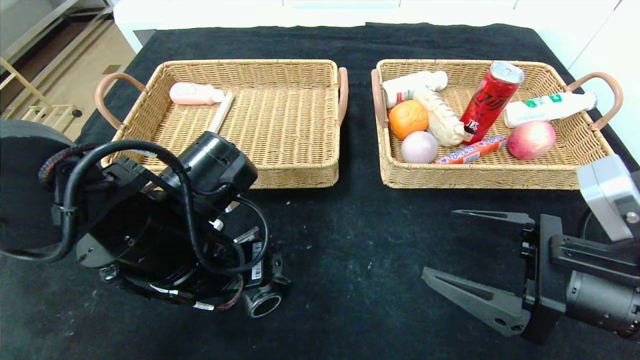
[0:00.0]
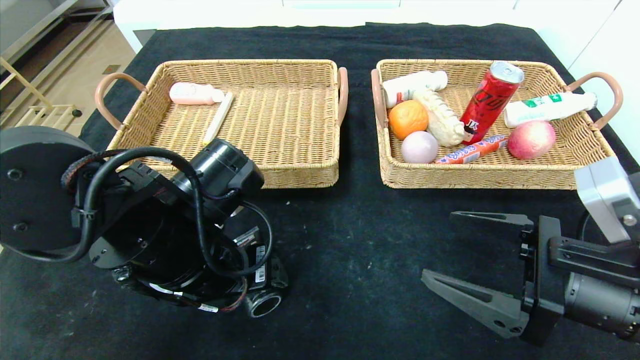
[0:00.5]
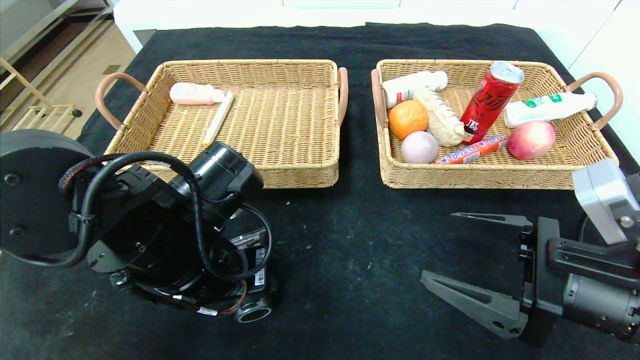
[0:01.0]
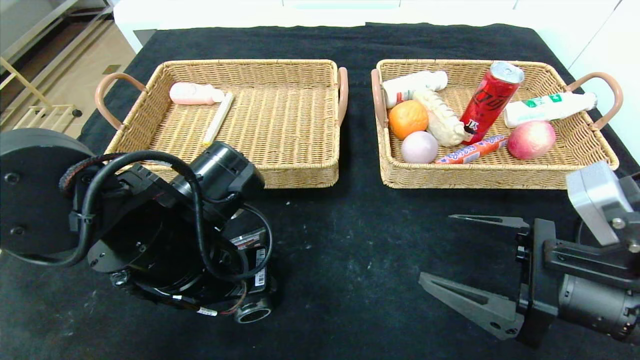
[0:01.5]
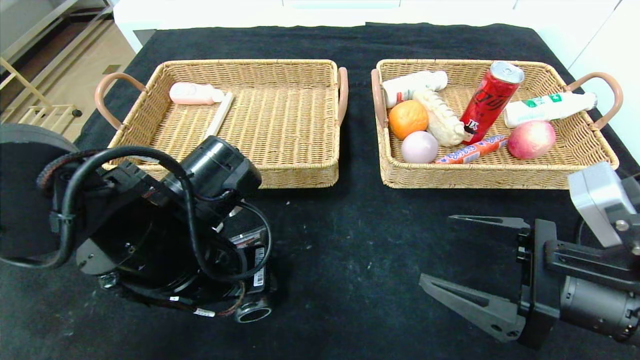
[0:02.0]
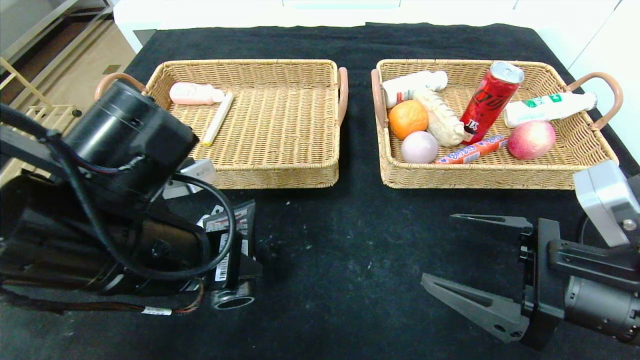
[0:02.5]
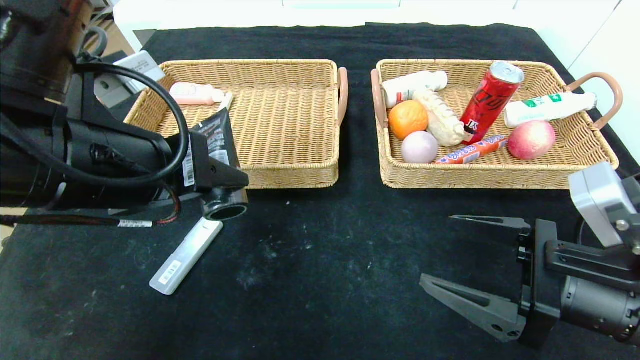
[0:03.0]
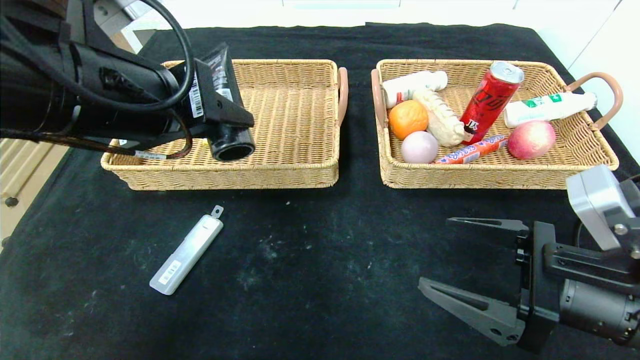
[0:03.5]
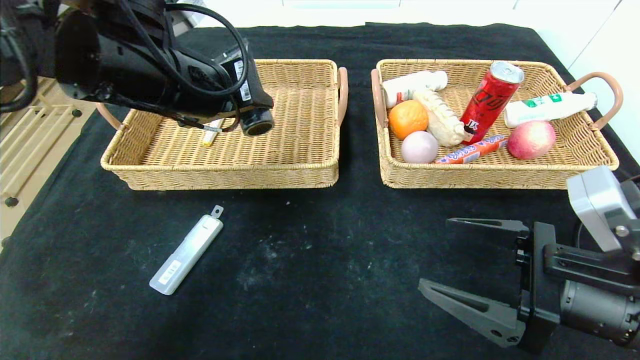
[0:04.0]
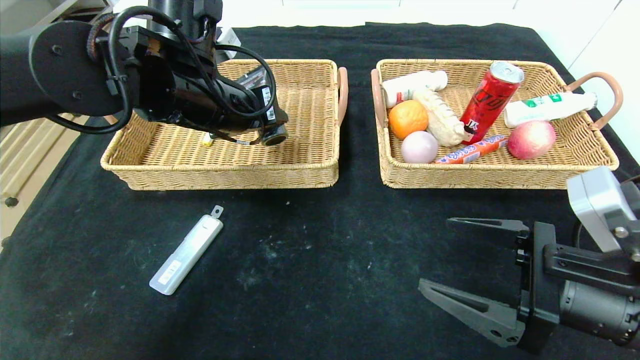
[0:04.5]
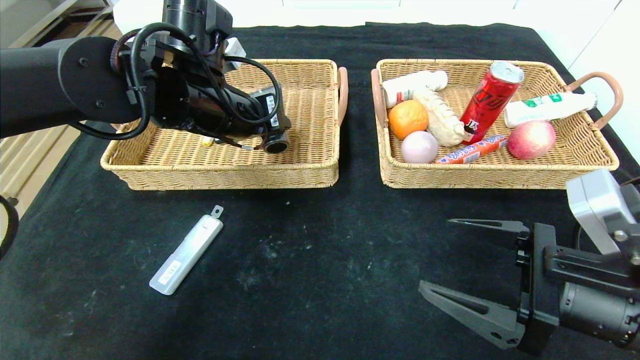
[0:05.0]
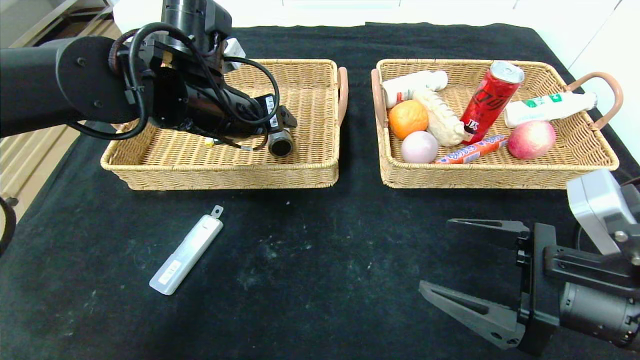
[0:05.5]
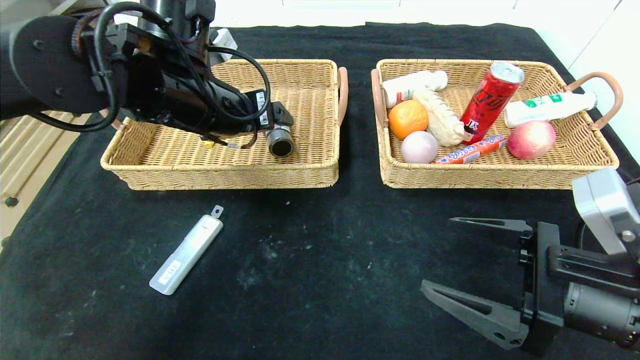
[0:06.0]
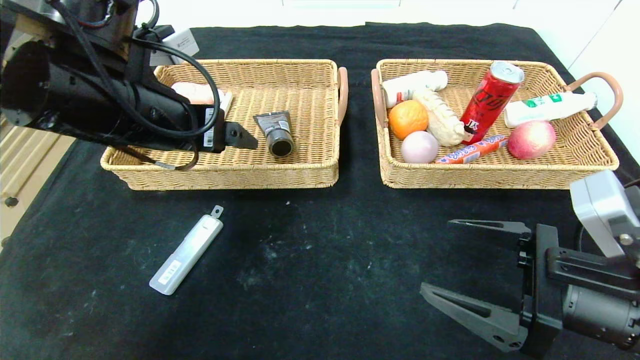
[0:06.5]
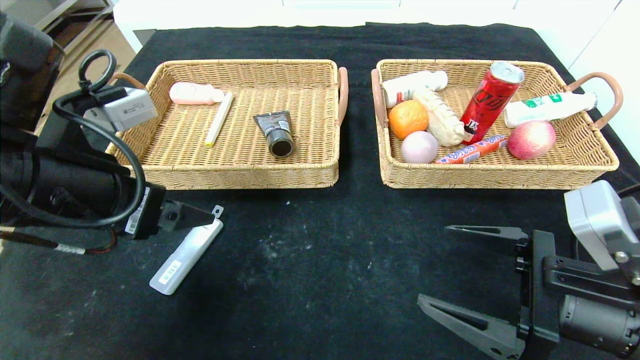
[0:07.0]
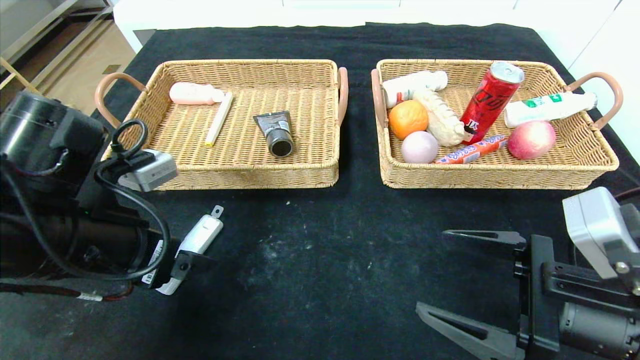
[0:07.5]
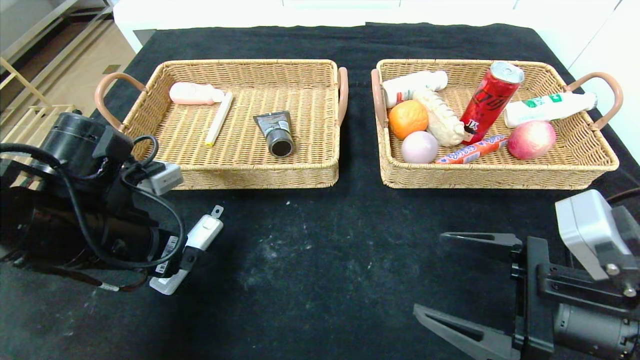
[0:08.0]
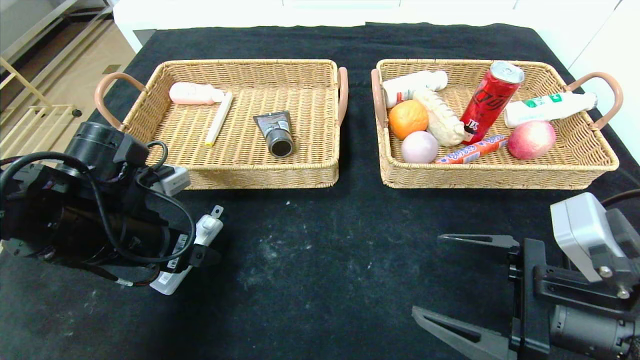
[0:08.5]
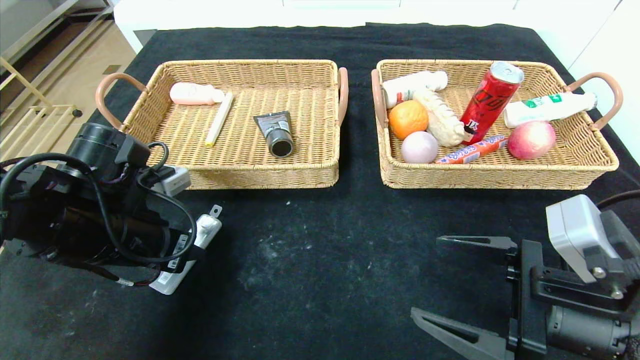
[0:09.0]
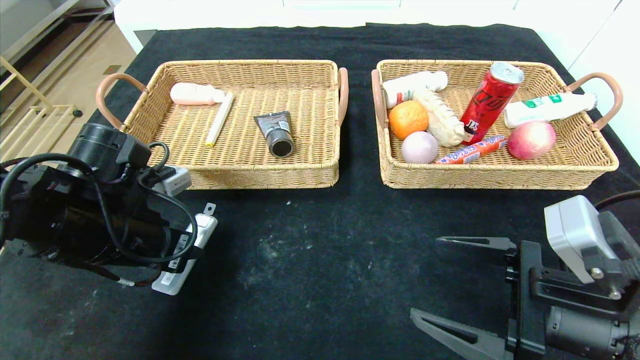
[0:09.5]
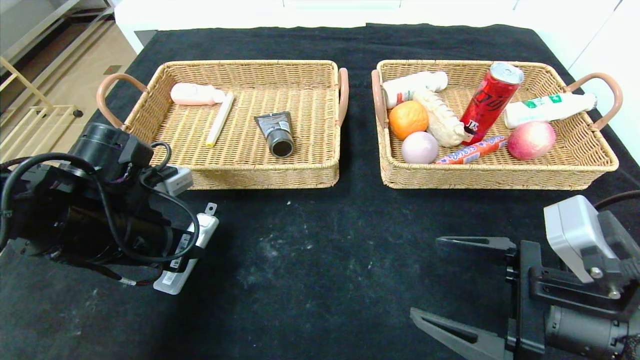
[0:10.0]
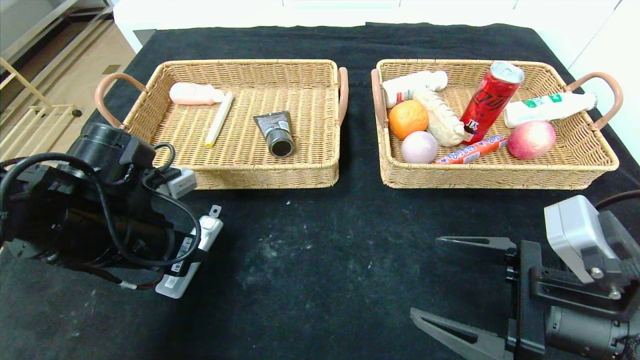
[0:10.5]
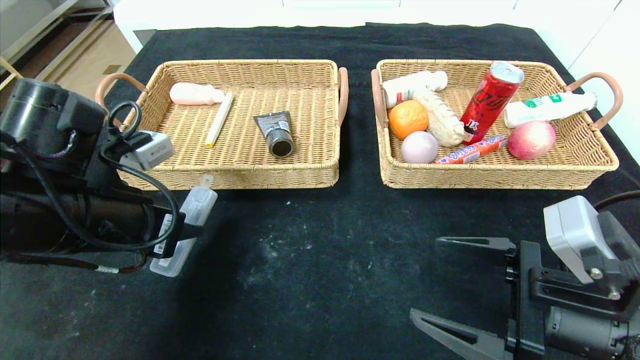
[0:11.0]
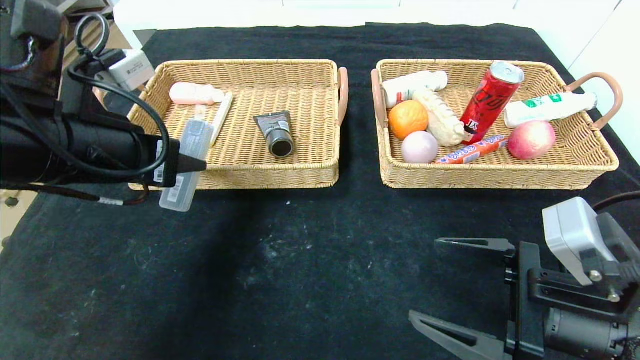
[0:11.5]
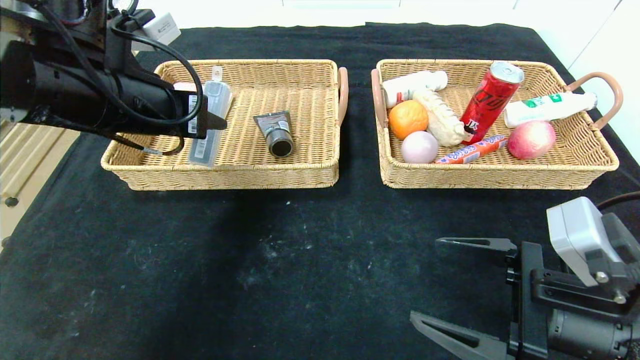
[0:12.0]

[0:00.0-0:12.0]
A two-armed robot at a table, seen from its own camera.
Step, 0:00.0 to 0:05.5: Grasp the soft cleanser and put it in the left basket.
0:00.0 to 0:02.0: The left gripper closes its fingers.
0:02.0 to 0:04.0: The left gripper moves upward and forward, roughly 15 cm.
0:04.0 to 0:06.0: The left gripper opens.
0:06.0 to 0:08.0: The left gripper heads backward, downward and to the left, covering about 15 cm.
0:08.0 to 0:10.0: The left gripper closes up.
0:10.0 to 0:12.0: The left gripper moves upward, about 15 cm.

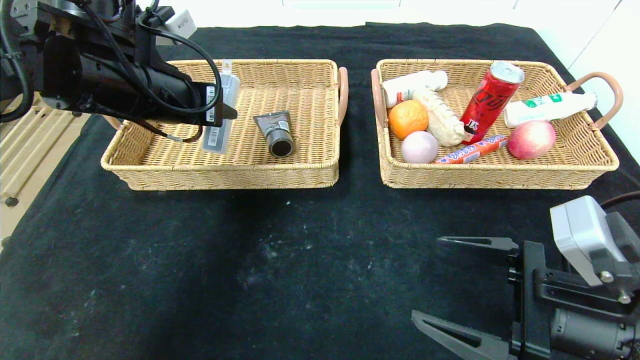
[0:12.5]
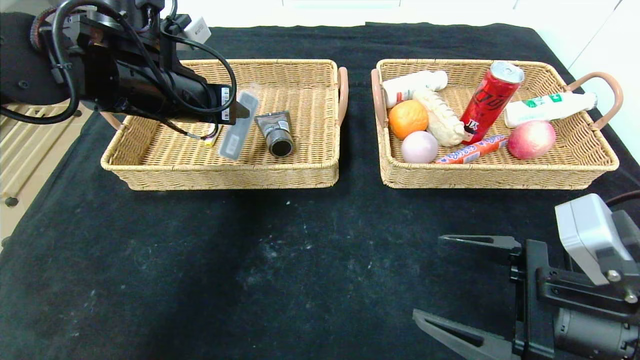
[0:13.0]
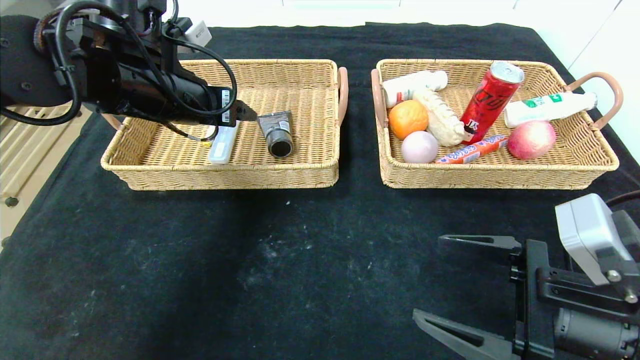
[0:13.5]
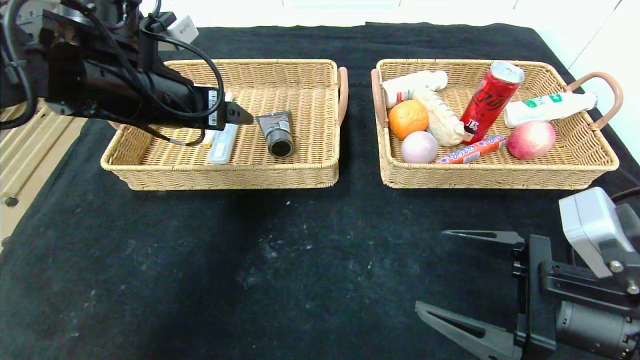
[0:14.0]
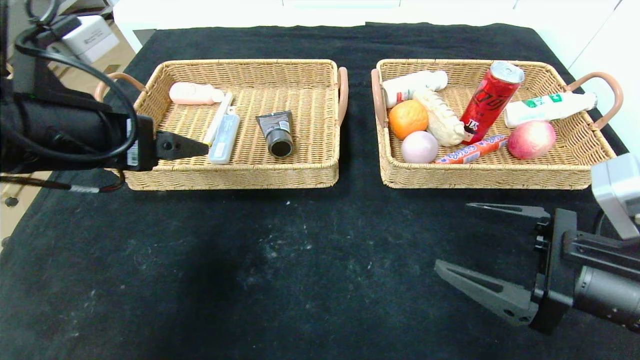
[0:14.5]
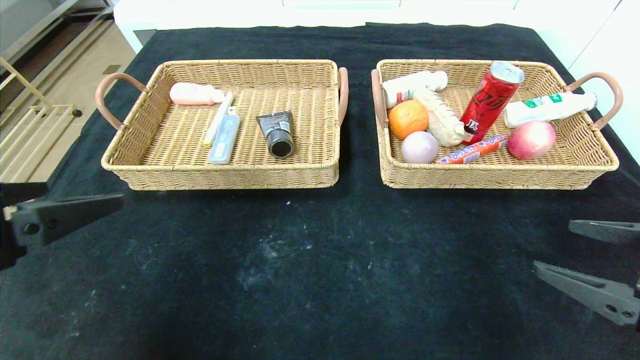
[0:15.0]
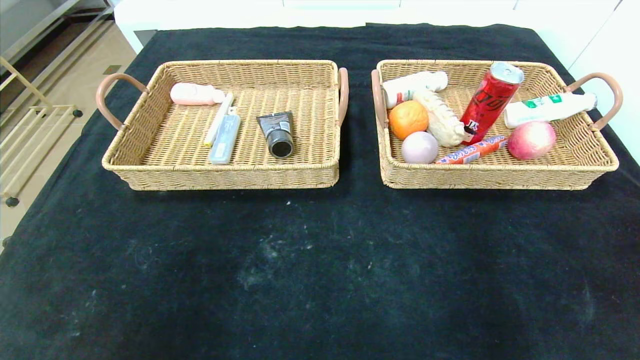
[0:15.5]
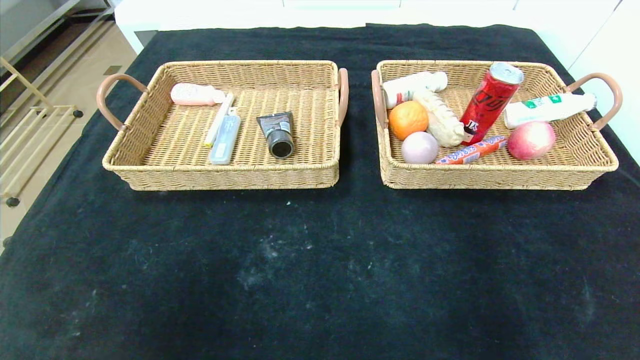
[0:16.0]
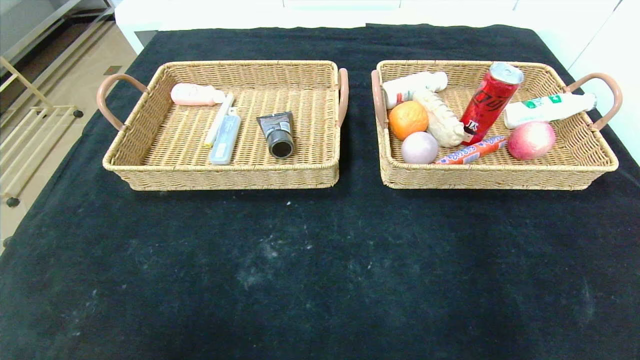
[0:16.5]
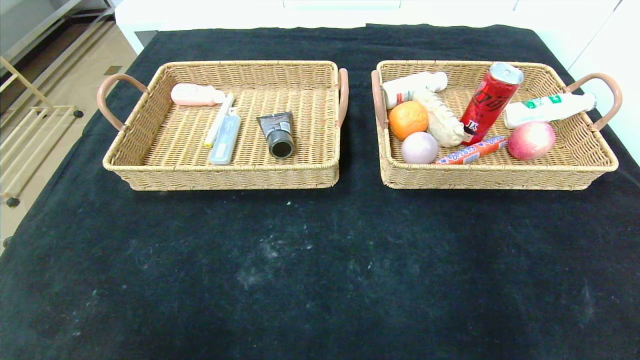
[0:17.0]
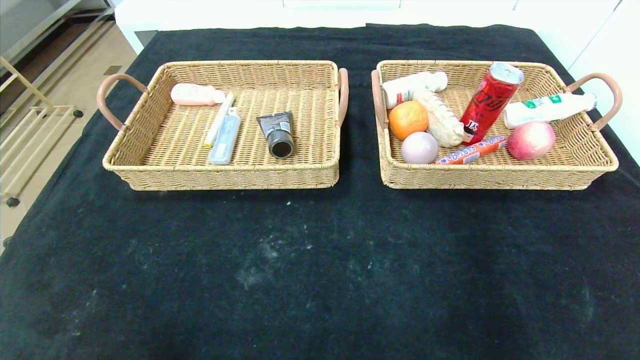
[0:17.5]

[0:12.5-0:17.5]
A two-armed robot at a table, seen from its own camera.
0:12.5 to 0:15.0: The left gripper goes some 20 cm backward, and opens its fingers. Meanwhile the right gripper travels to the right by roughly 10 cm.
0:15.0 to 0:17.5: The right gripper shifts roughly 20 cm backward and downward; the left gripper is displaced downward and backward by some 25 cm.

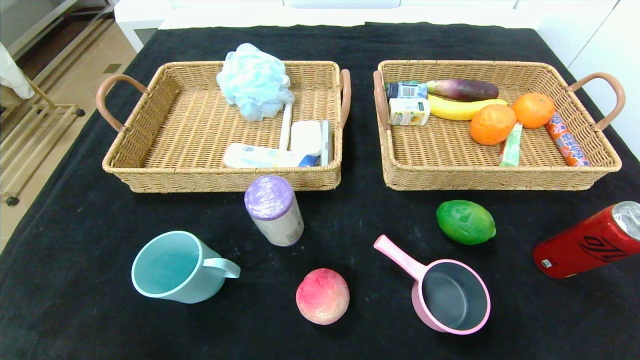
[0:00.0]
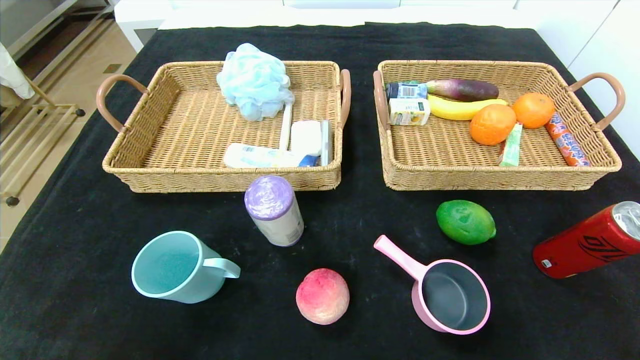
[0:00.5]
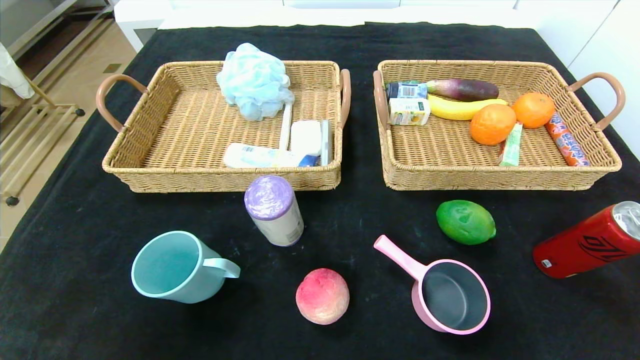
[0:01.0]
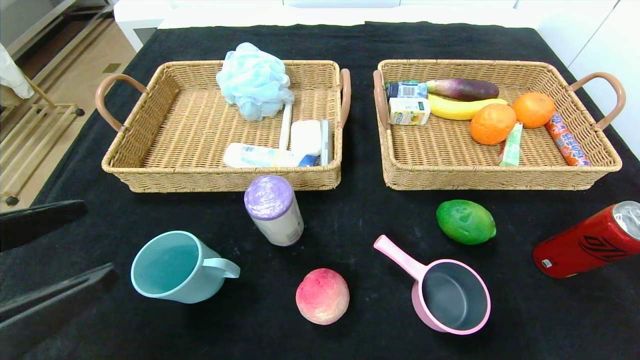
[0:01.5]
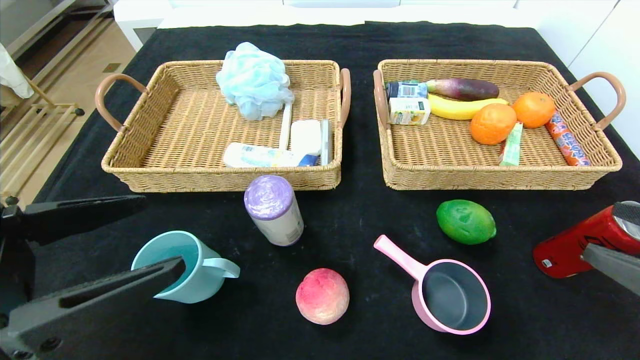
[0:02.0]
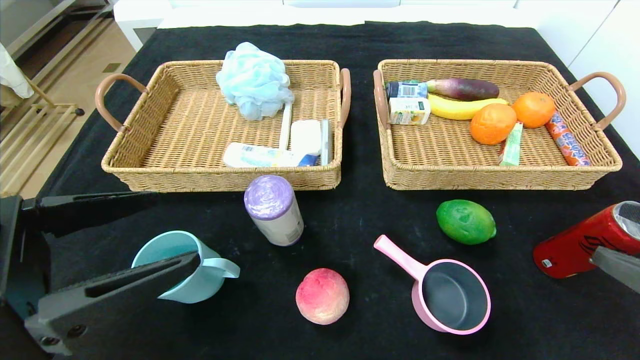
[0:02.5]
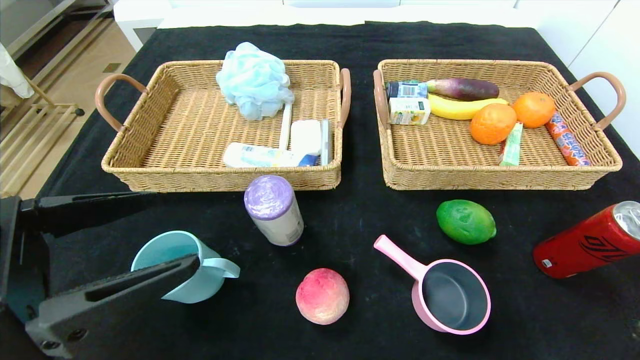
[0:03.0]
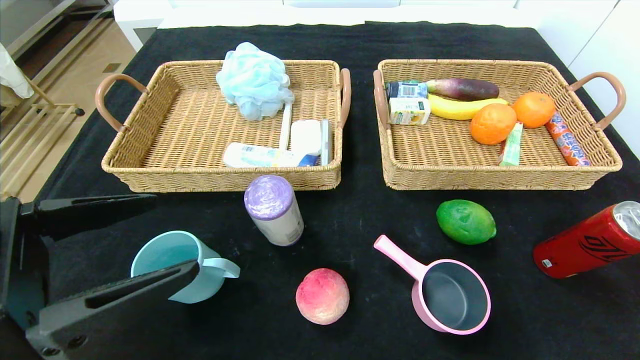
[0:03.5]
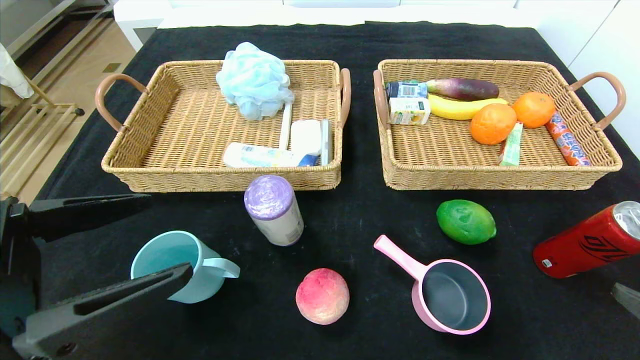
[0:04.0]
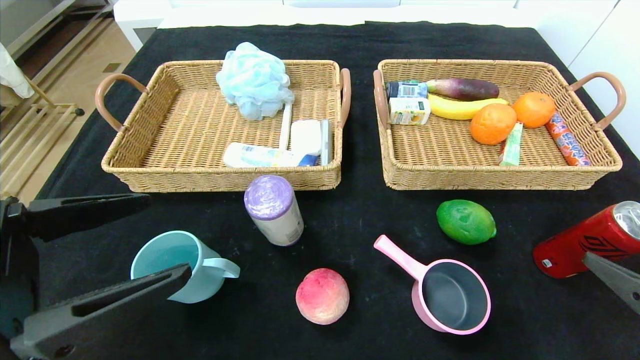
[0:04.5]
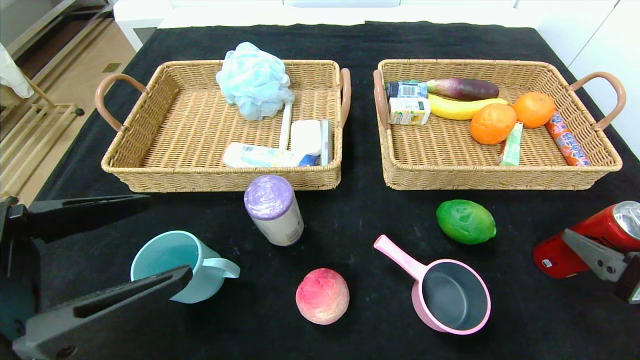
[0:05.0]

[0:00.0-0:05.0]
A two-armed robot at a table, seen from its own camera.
0:00.0 to 0:02.5: The two grippers go roughly 20 cm upward and forward.
0:02.5 to 0:05.0: The right gripper goes roughly 10 cm downward and forward.
